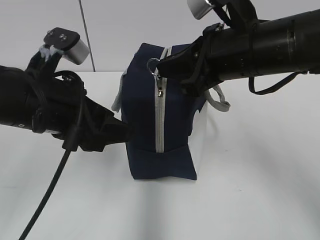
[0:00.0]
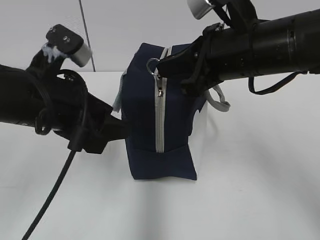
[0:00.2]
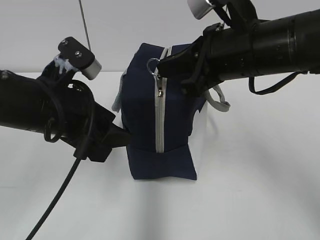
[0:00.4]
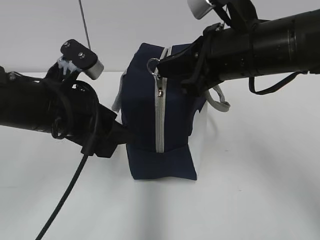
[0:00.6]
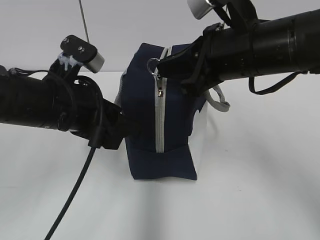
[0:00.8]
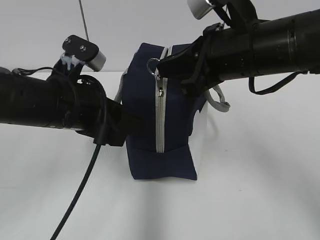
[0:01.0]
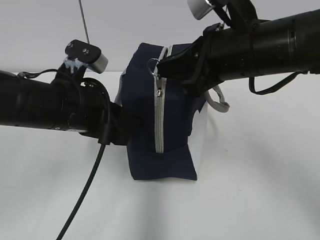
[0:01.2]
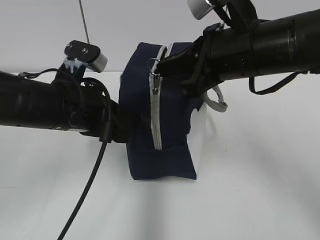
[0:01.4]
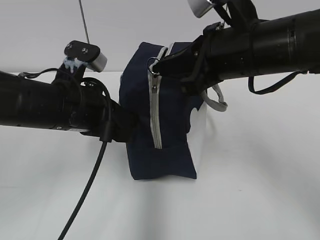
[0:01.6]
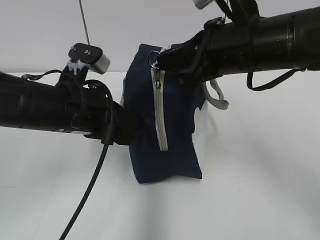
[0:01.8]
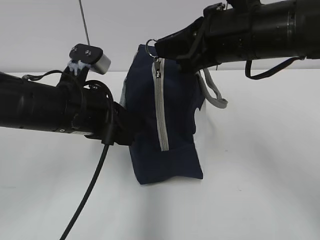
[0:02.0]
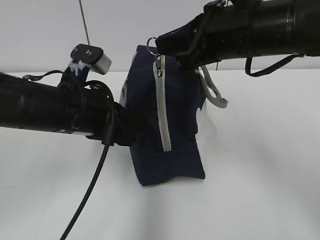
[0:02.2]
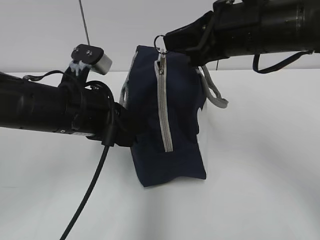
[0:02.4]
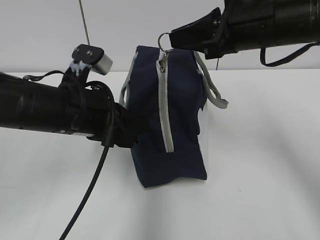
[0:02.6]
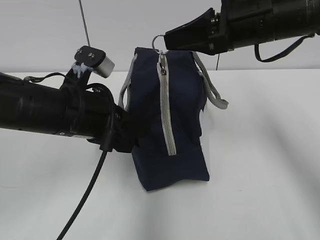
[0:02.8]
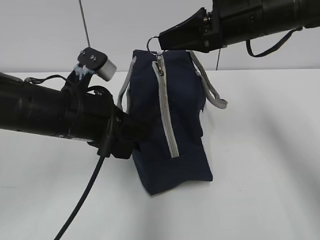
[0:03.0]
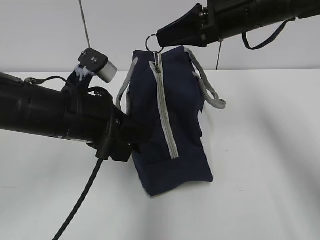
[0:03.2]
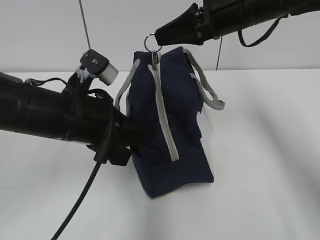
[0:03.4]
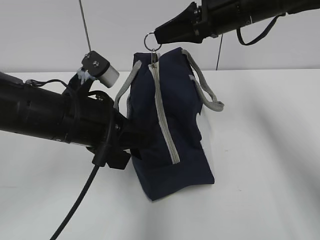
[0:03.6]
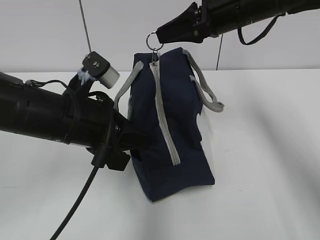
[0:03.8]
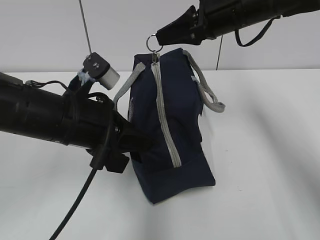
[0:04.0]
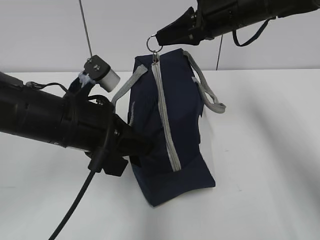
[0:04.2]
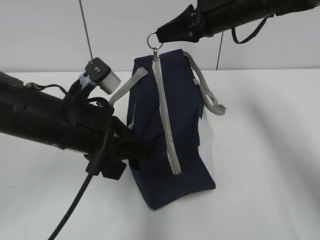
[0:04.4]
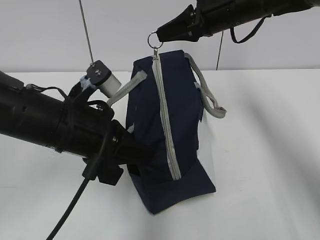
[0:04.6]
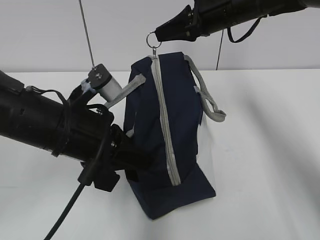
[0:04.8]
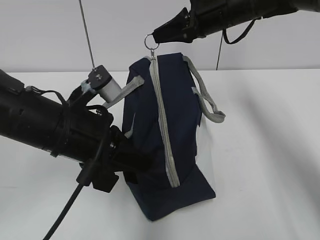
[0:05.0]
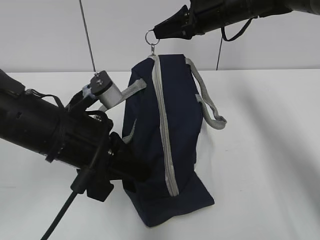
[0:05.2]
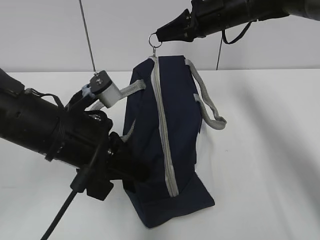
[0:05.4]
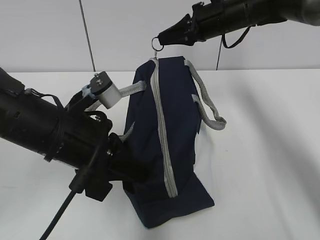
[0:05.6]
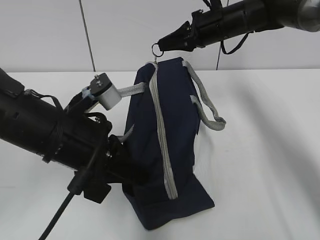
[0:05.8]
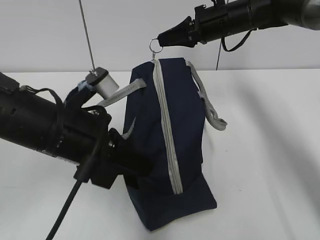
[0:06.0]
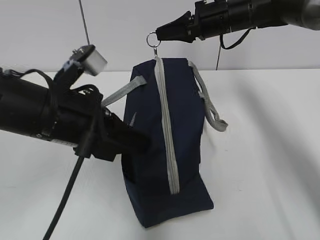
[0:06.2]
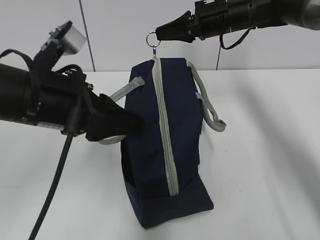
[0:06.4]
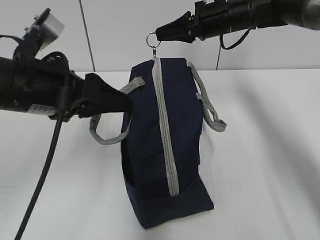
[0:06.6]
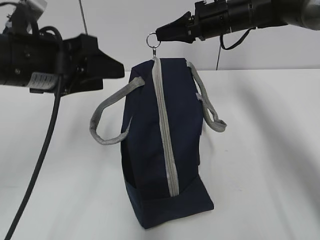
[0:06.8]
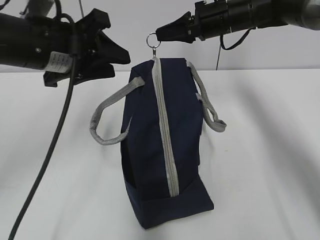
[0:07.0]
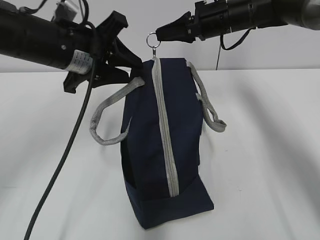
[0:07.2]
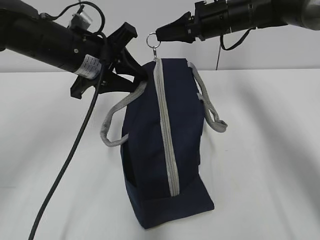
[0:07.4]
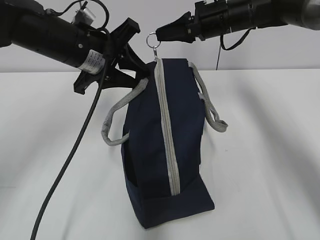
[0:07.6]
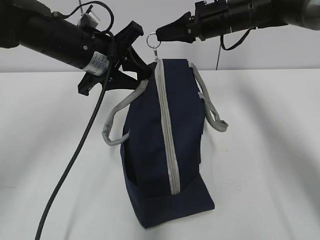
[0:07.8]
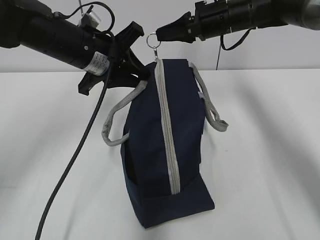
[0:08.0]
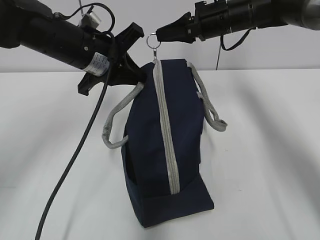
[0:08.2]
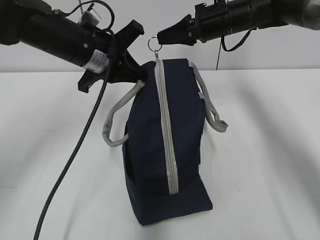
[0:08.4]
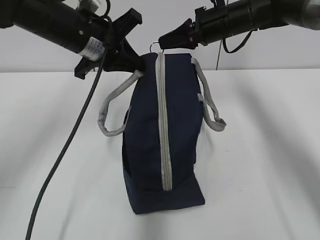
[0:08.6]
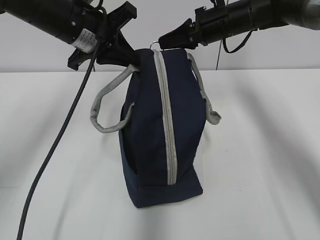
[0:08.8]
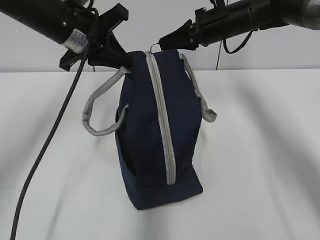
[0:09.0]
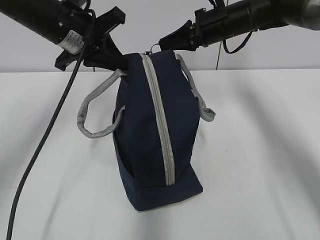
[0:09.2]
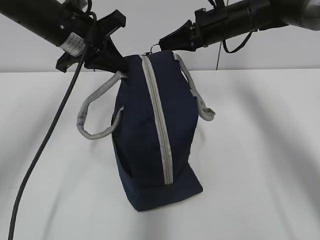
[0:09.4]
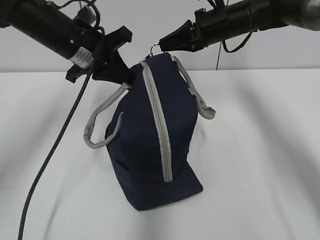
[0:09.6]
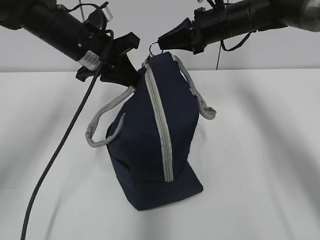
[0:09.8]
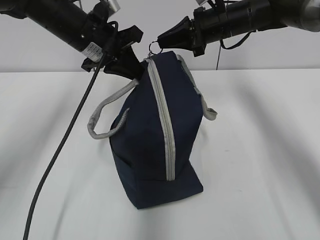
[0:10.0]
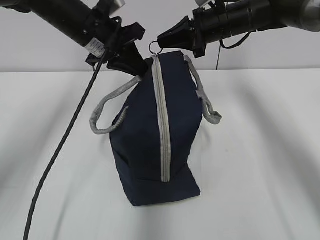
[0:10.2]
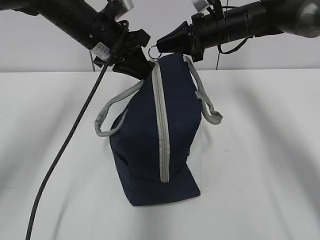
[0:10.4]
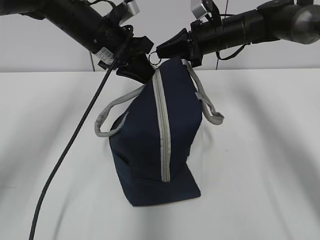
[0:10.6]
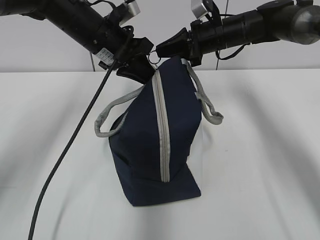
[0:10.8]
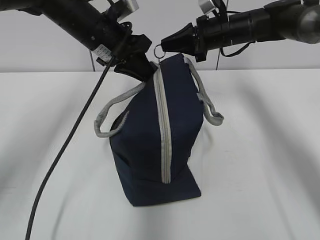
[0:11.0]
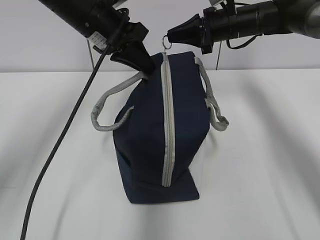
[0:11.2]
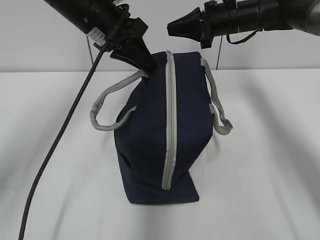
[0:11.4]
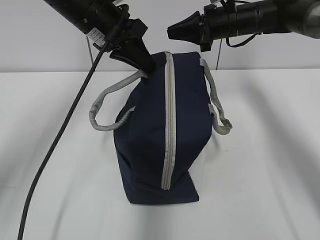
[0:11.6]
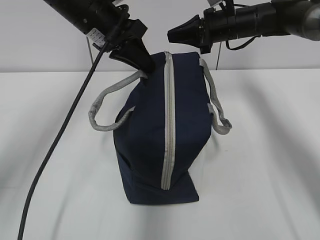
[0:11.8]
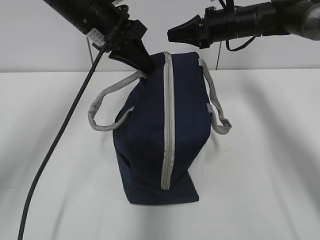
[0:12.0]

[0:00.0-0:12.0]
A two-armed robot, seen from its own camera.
Step, 0:01.6 to 0:10.8: Pull the zipper with your right hand.
0:00.0 to 0:01.6: The left gripper moves some 5 cm, and closes its fingers.
0:01.6 to 0:03.0: The right gripper shifts roughly 5 cm forward.
0:03.0 to 0:04.4: The right gripper moves forward, roughly 5 cm.
0:04.4 to 0:06.0: The right gripper heads forward, covering some 5 cm.
0:06.0 to 0:07.6: The left gripper travels forward by approximately 15 cm, and opens up.
0:07.6 to 0:09.0: The left gripper closes.
0:10.4 to 0:12.0: The grippers make only small movements.

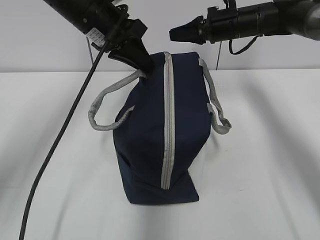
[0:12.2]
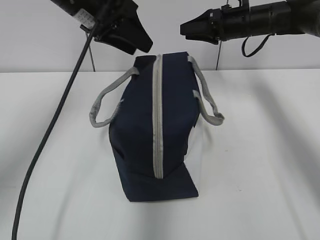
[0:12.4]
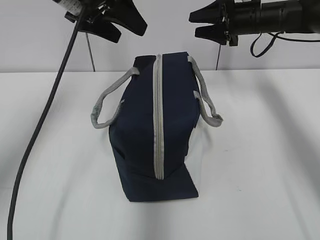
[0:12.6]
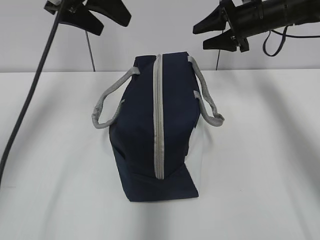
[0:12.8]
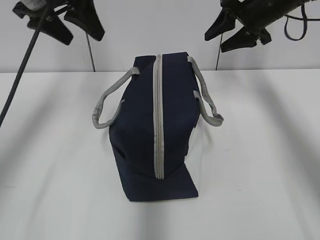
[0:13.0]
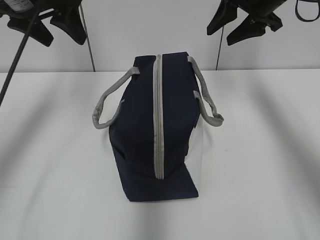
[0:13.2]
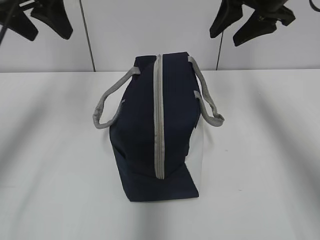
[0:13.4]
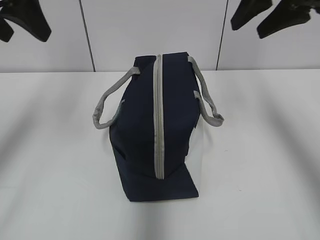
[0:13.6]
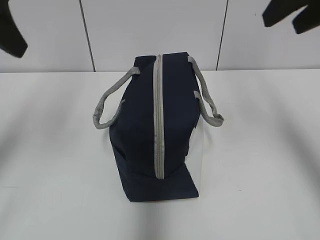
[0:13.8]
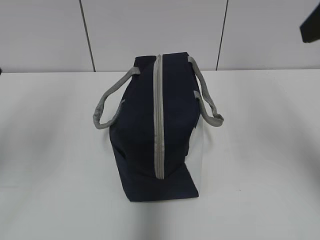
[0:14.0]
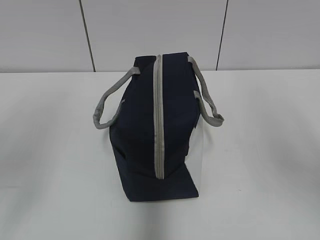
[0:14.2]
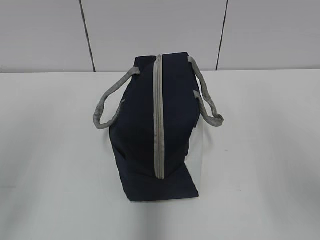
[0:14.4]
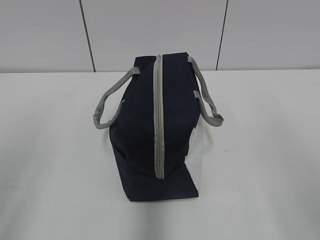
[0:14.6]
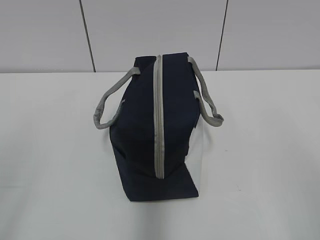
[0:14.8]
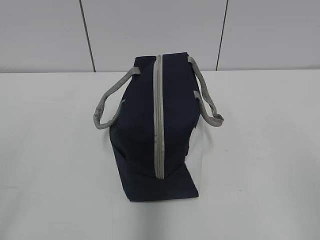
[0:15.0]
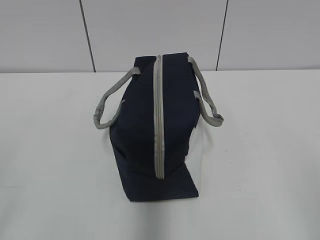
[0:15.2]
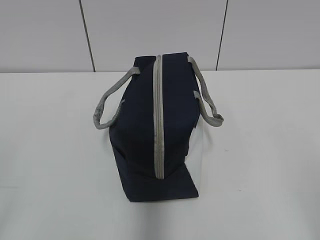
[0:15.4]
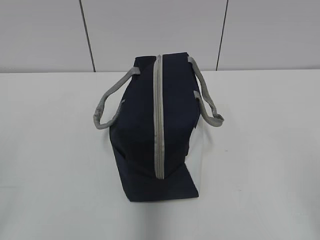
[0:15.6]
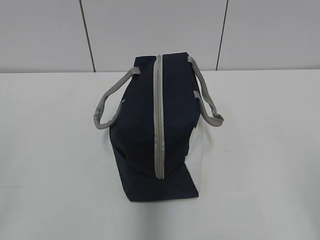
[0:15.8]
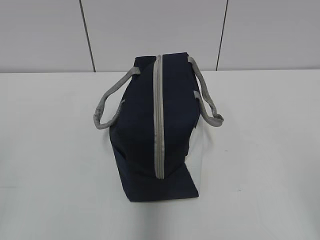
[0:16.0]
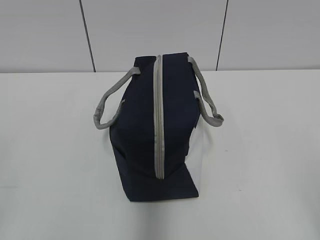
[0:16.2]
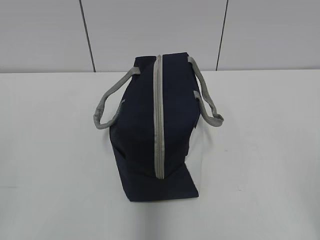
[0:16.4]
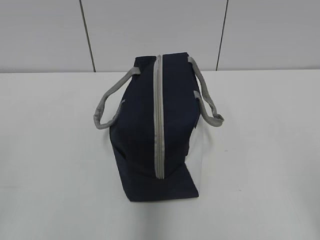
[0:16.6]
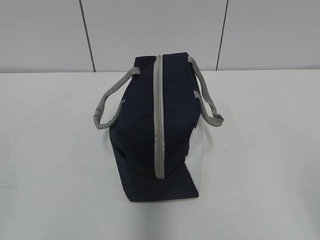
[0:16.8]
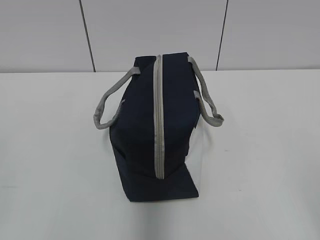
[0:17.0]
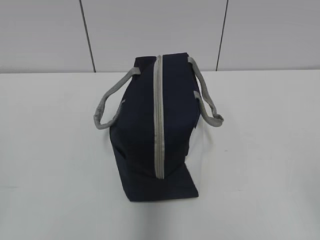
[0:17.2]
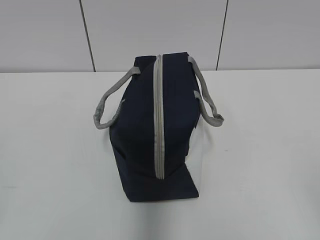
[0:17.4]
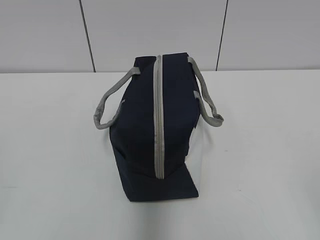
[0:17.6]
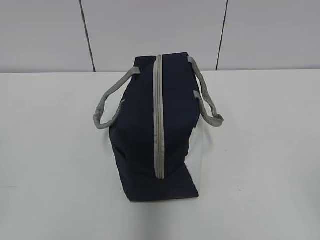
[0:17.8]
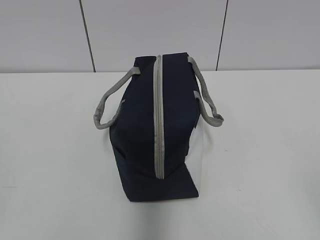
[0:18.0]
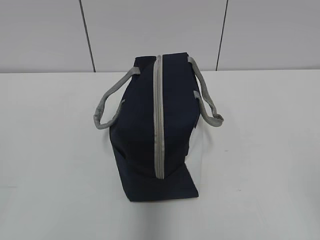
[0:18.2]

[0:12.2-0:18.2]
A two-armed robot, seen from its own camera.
0:12.2 to 0:13.8: The left gripper travels backward, to the left and upward by about 20 cm, and opens up; the right gripper travels backward and upward by some 30 cm, and opens its fingers.
0:13.8 to 0:15.2: Both grippers travel together backward and downward, approximately 30 cm.
